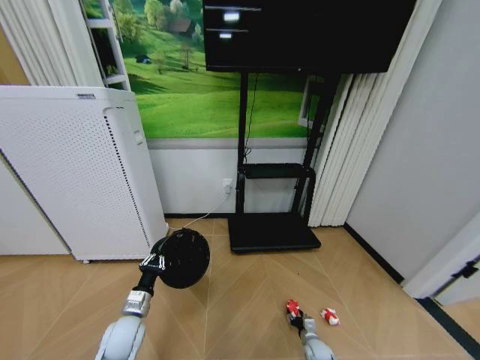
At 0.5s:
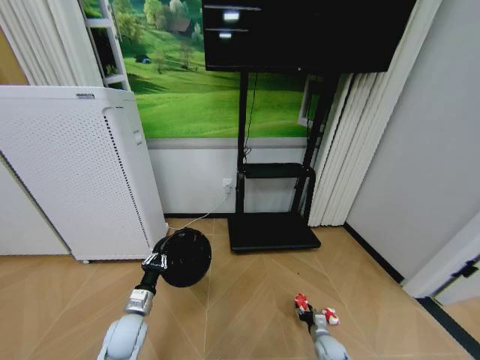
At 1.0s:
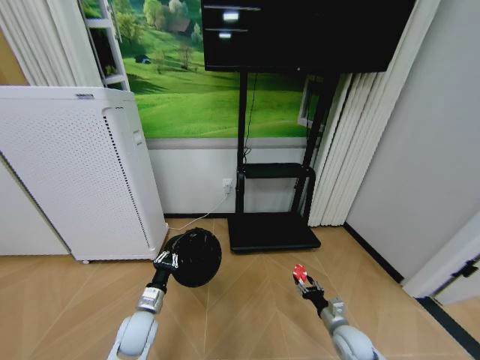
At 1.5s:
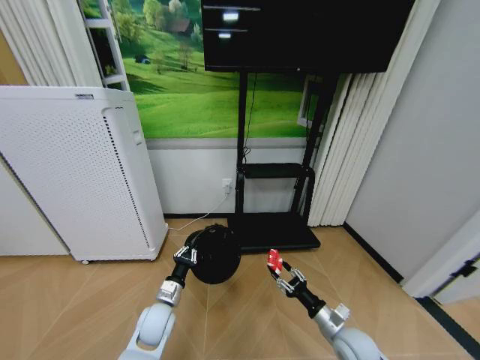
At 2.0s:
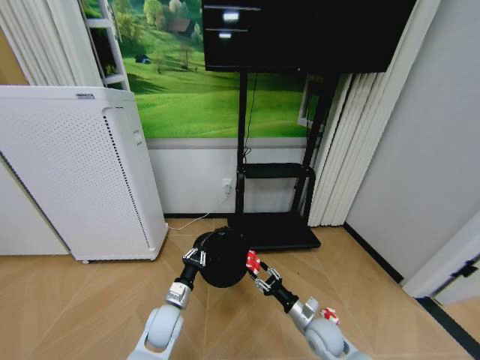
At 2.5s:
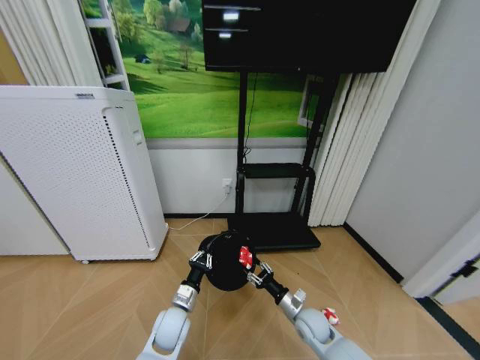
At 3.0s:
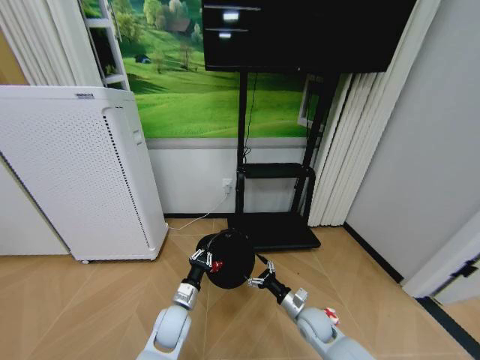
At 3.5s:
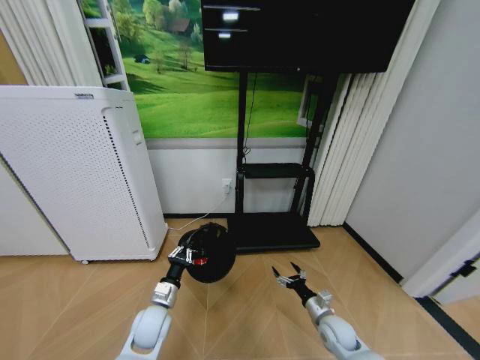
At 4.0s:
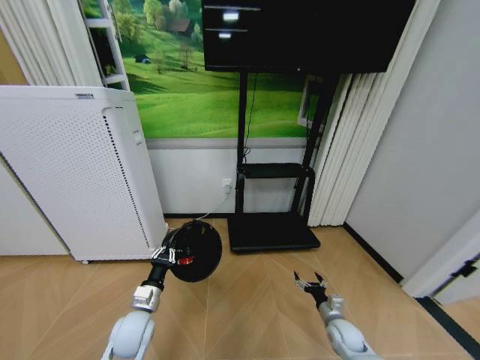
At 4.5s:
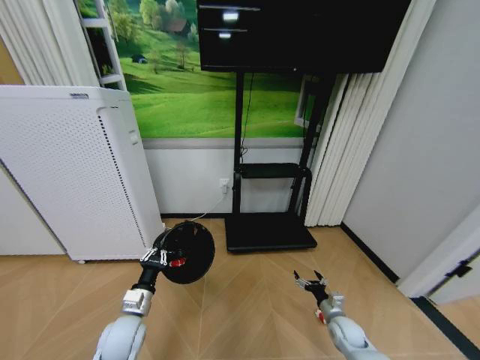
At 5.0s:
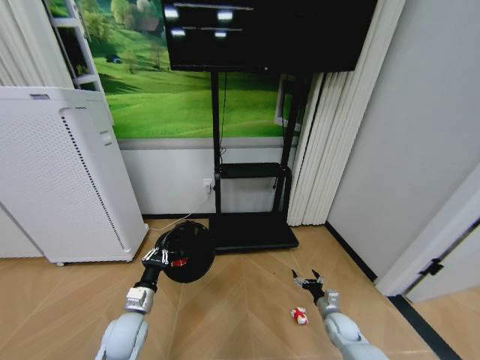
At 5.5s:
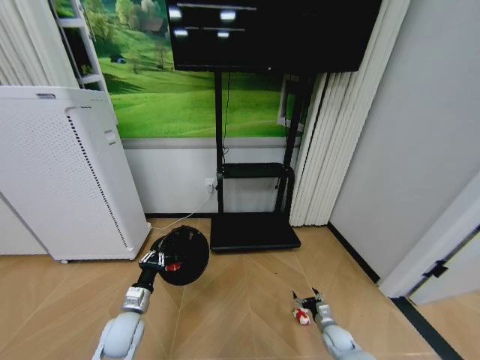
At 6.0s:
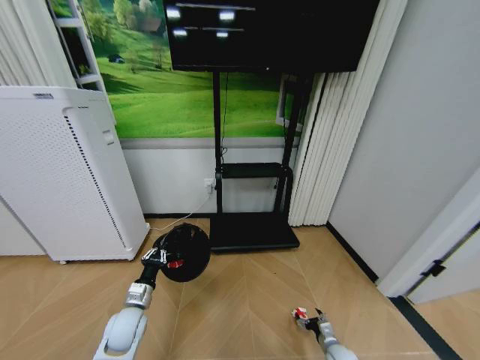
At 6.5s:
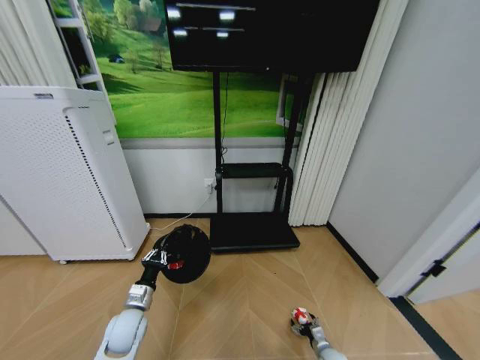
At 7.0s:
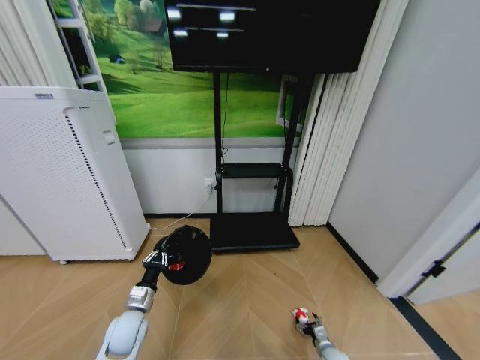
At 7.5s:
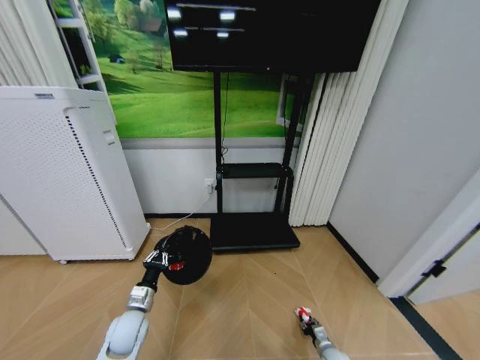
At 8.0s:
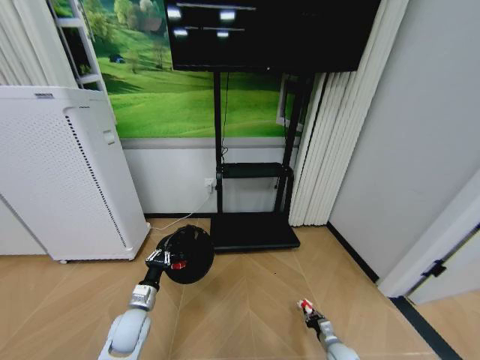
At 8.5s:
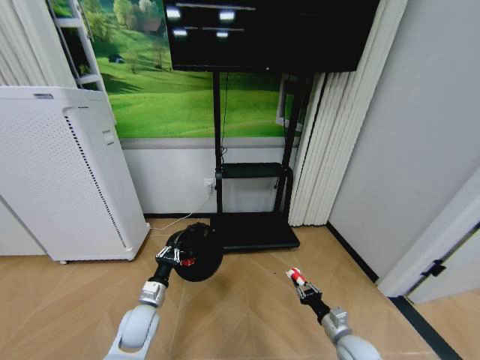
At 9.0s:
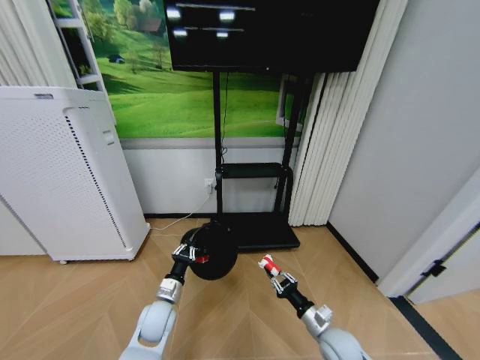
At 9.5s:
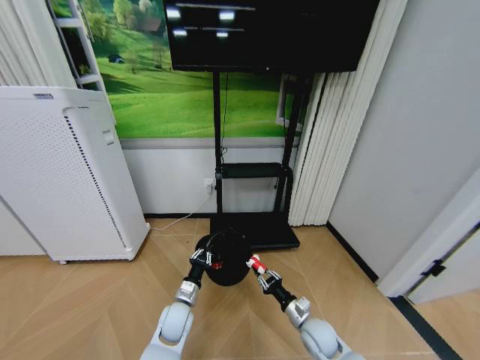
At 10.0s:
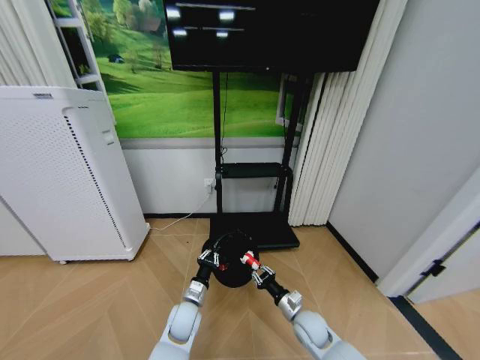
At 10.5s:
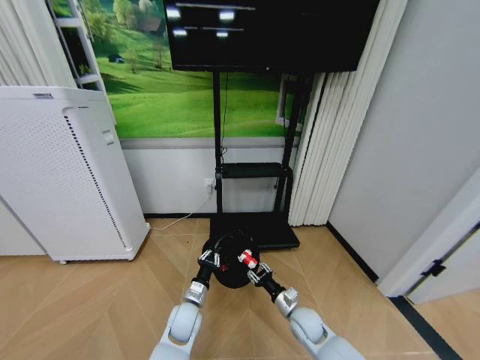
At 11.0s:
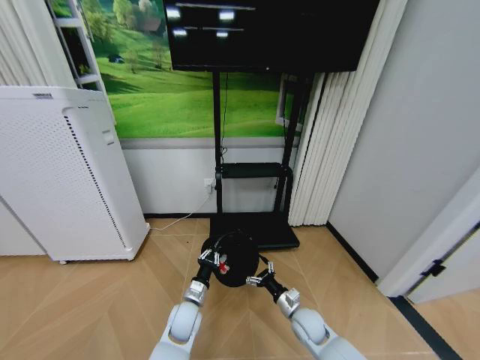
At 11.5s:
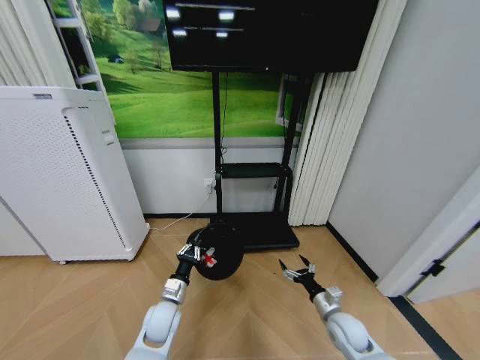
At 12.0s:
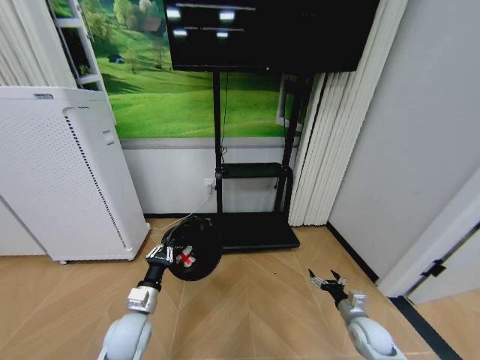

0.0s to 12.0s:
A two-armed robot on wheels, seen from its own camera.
Task of the whole recording: Pick up the trash bin and place the garbage on the floor into it.
0.0s to 2.0s: The right gripper goes approximately 20 cm upward; the left gripper shifts approximately 10 cm to the right.
2.0s to 4.0s: The right gripper shifts about 10 cm to the right and downward, and opens its fingers. The left gripper heads to the left, covering about 5 cm.
4.0s to 6.0s: The right gripper travels downward by some 10 cm.
6.0s to 8.0s: The right gripper closes.
8.0s to 10.0s: The right gripper goes approximately 20 cm upward and to the left. The left gripper travels to the right by about 15 cm.
10.0s to 12.0s: The right gripper is displaced to the right by approximately 15 cm, and opens up. The left gripper moves to the left, upward and backward, some 15 cm.

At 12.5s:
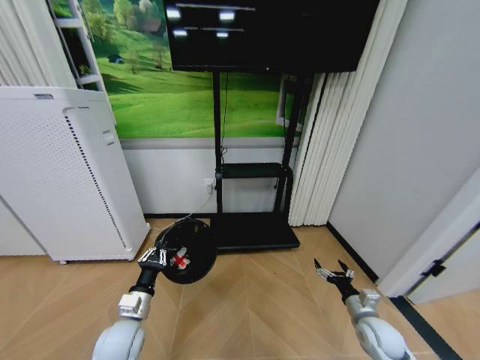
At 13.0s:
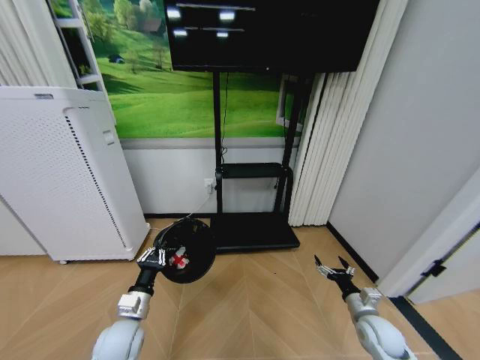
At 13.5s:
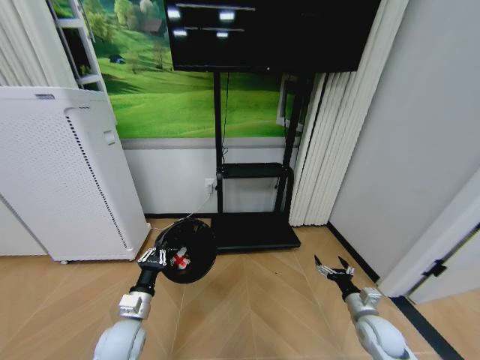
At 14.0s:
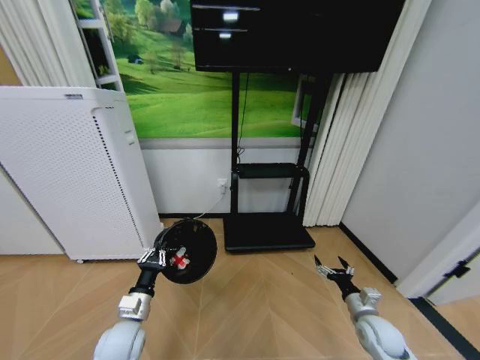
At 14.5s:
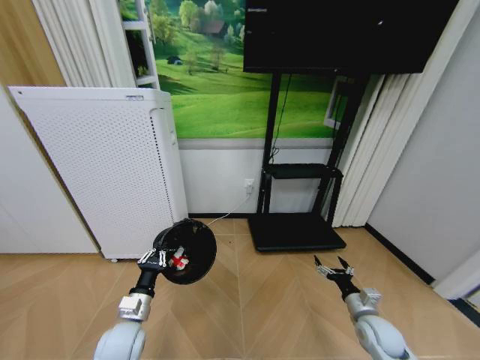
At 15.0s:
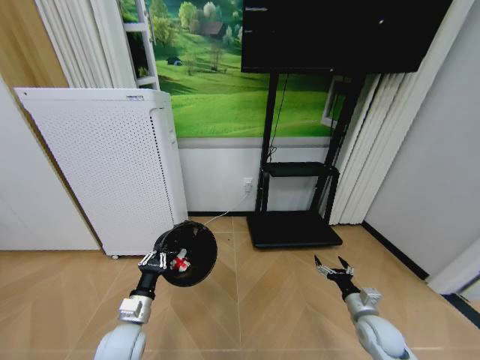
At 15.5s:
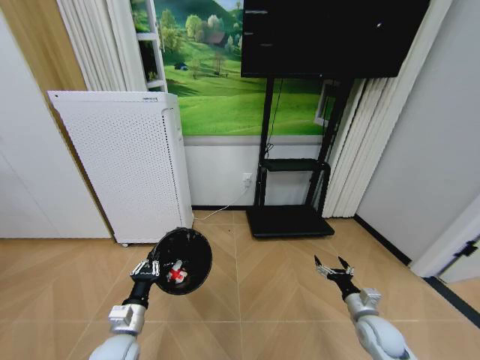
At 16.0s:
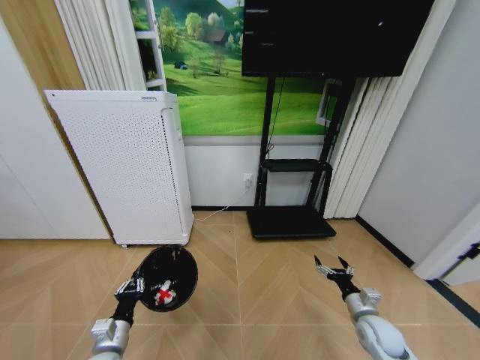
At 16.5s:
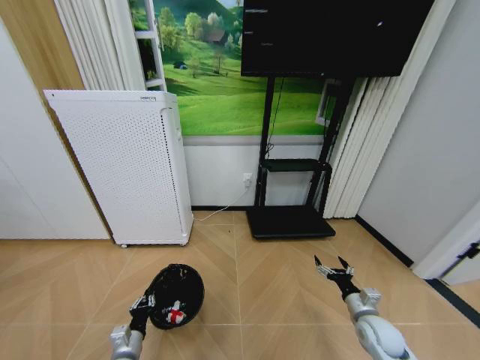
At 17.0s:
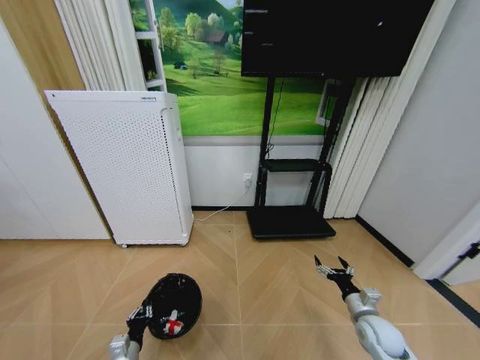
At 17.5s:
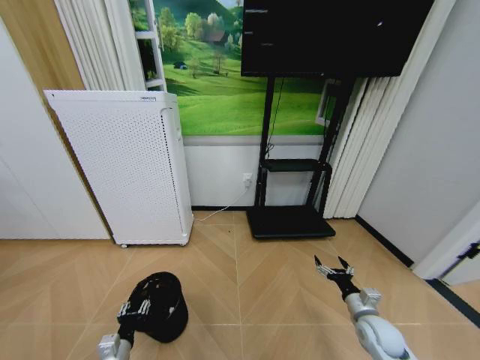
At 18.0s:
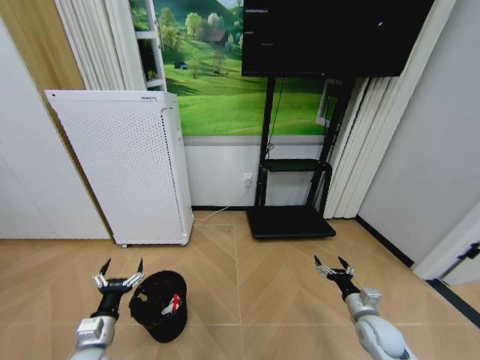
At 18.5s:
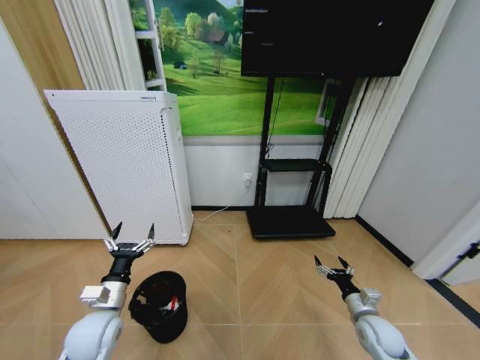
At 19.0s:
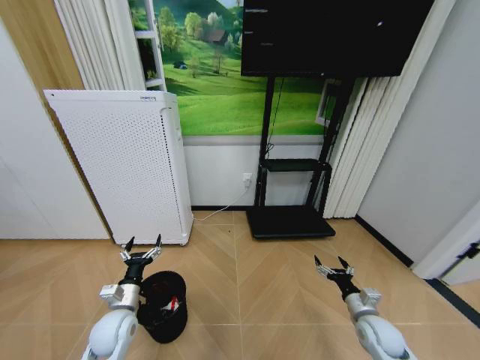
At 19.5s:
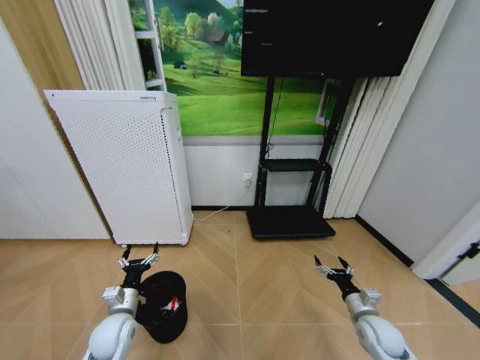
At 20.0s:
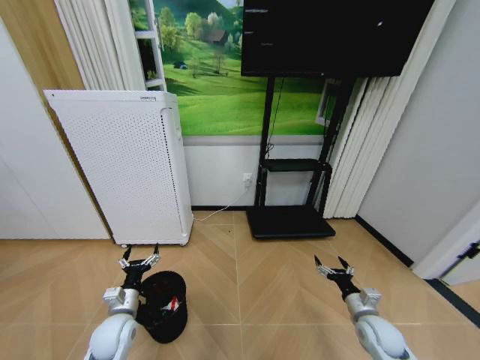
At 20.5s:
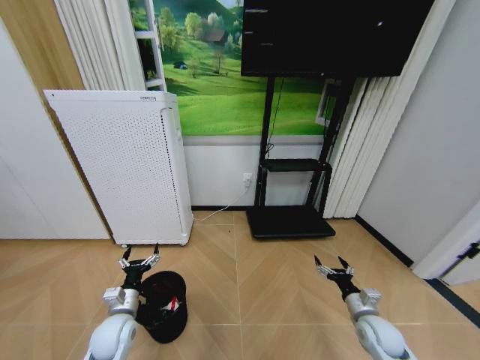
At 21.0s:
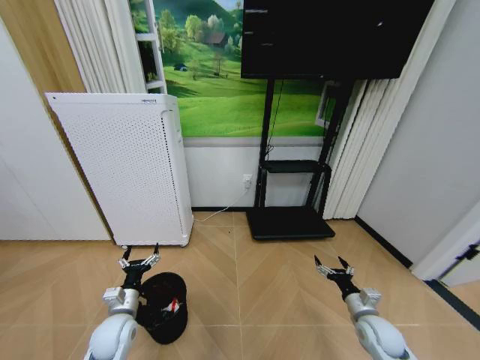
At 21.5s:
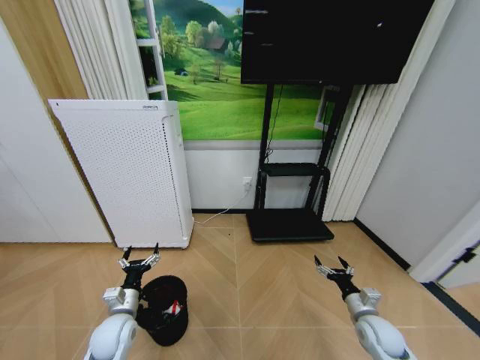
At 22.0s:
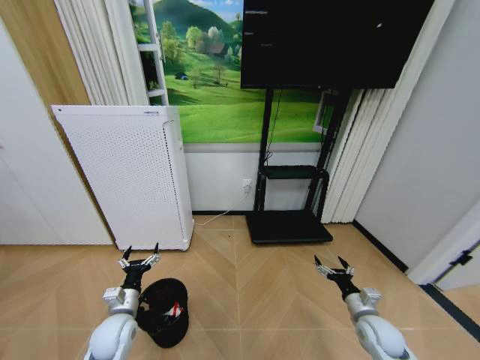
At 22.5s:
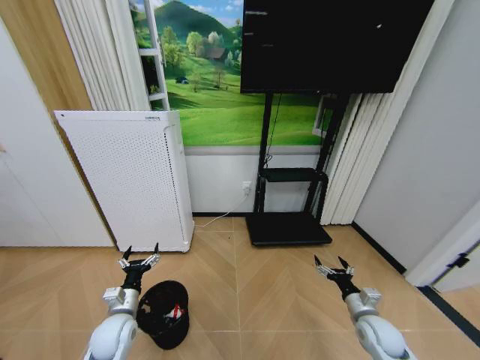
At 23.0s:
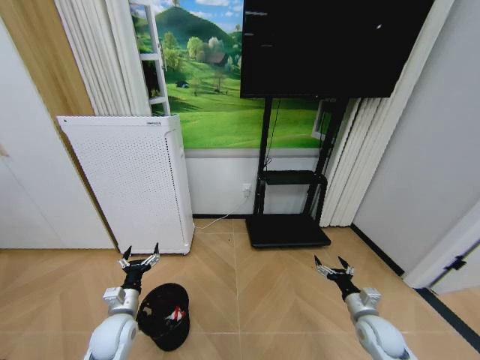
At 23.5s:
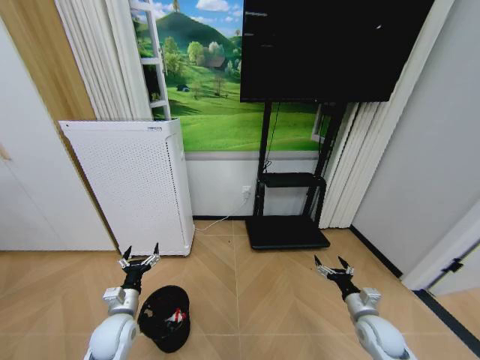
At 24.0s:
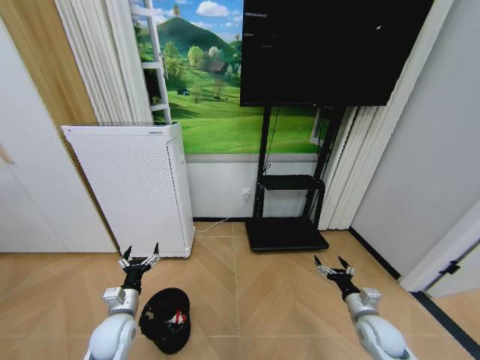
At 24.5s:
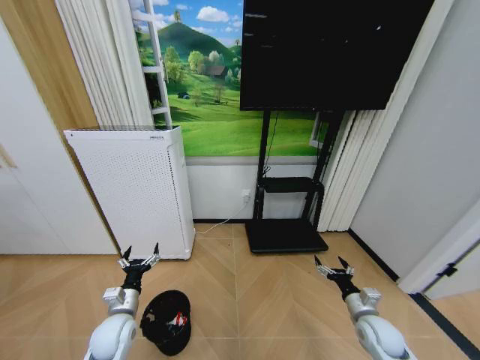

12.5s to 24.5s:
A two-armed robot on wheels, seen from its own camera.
Task of the whole recording: Pick up the trash bin and place the garbage on the floor into it.
14.5s to 16.5s: The left gripper moves downward, approximately 10 cm.
16.5s to 18.5s: The left gripper heads upward and forward, covering roughly 15 cm, and opens.
18.5s to 20.5s: The left gripper is displaced downward by approximately 5 cm.
20.5s to 24.5s: Both grippers stay put.

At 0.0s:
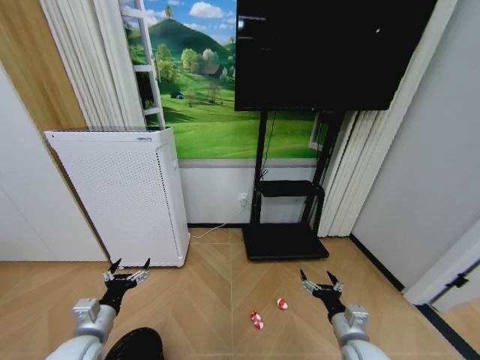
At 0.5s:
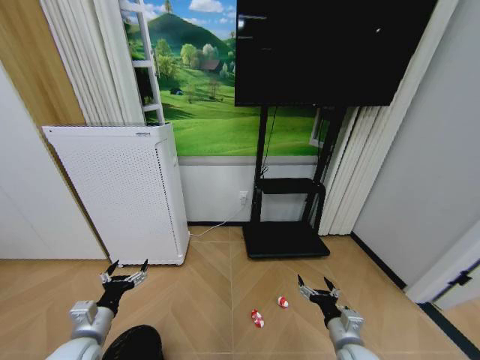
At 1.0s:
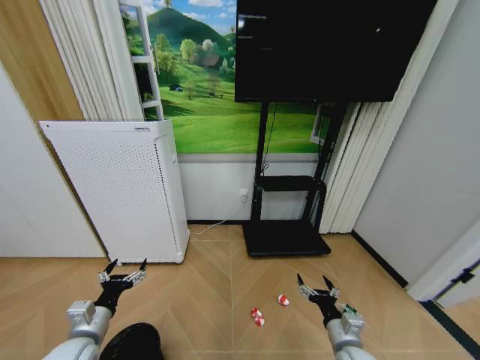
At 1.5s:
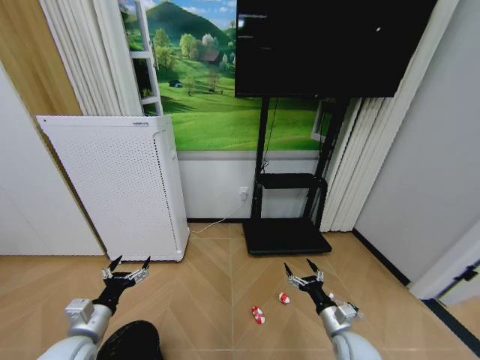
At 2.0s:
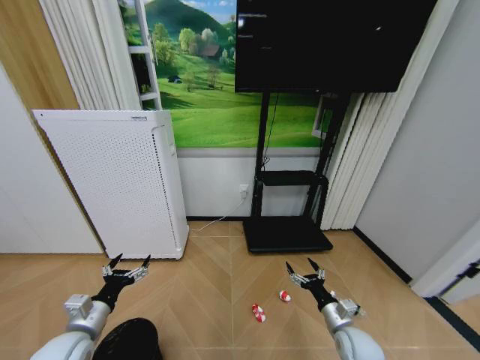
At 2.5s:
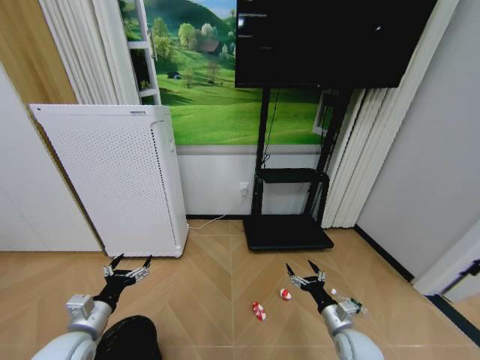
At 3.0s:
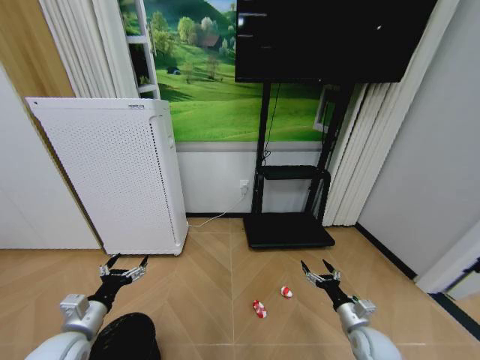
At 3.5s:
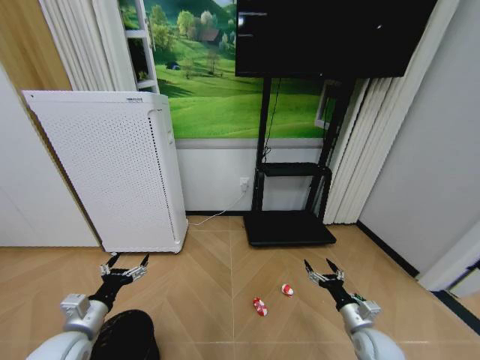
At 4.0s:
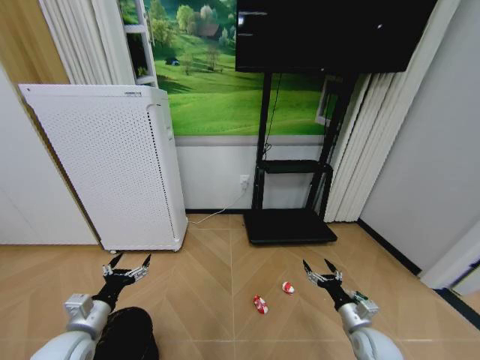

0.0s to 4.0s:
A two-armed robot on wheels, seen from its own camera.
Task of the whole recording: Pick up the trash bin and place the garbage on the floor into it.
0.0s to 2.0s: The right gripper shifts about 5 cm downward.
2.0s to 4.0s: The right gripper shifts approximately 5 cm to the right.
